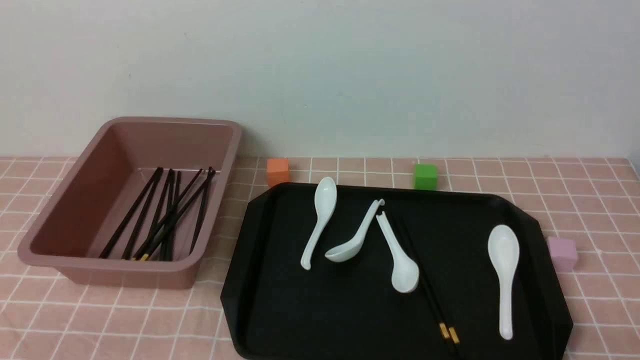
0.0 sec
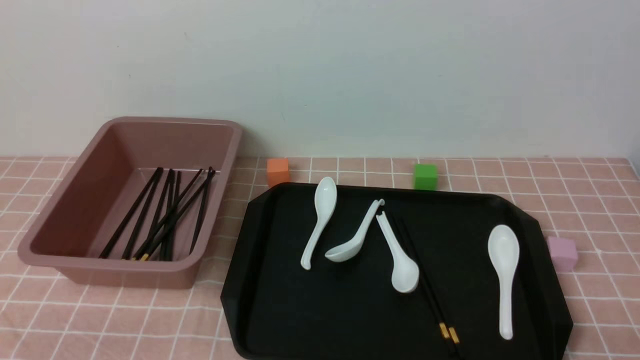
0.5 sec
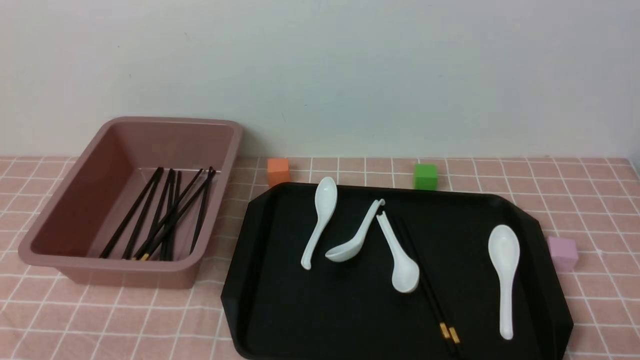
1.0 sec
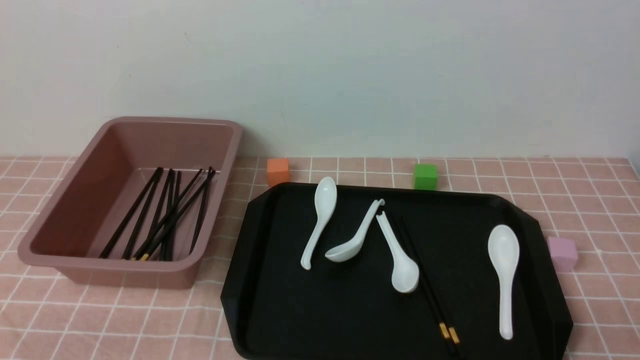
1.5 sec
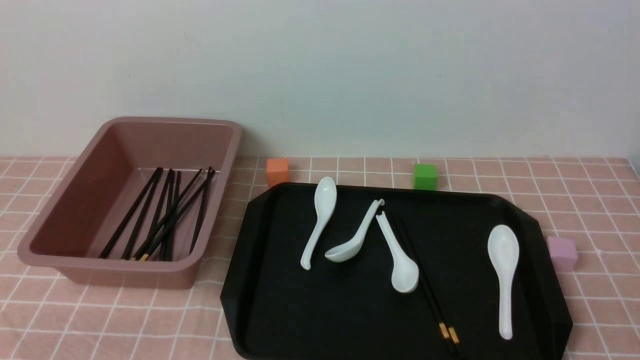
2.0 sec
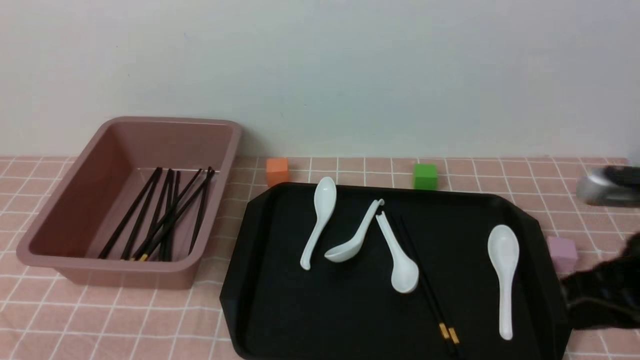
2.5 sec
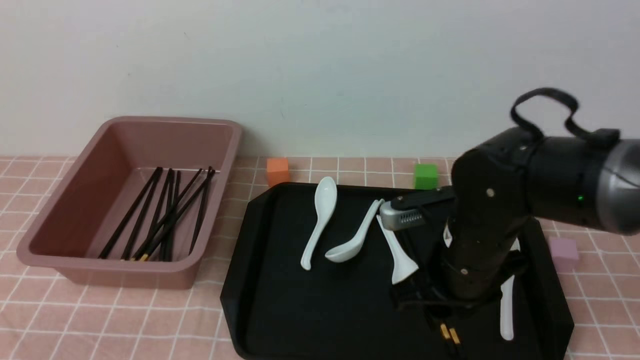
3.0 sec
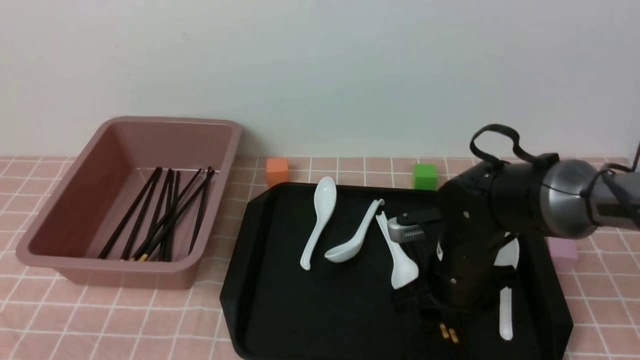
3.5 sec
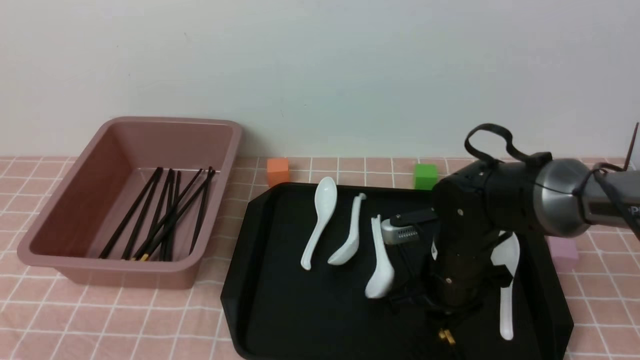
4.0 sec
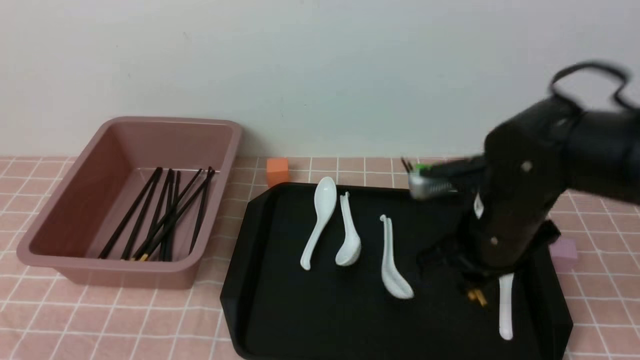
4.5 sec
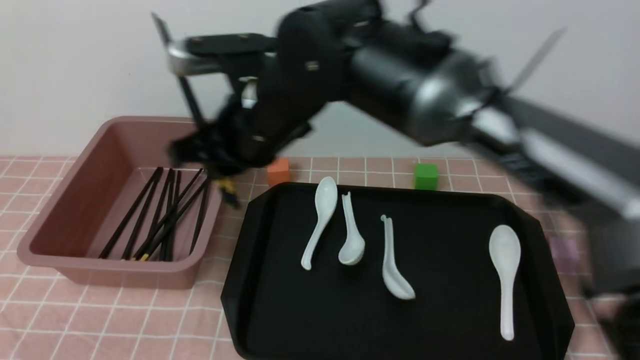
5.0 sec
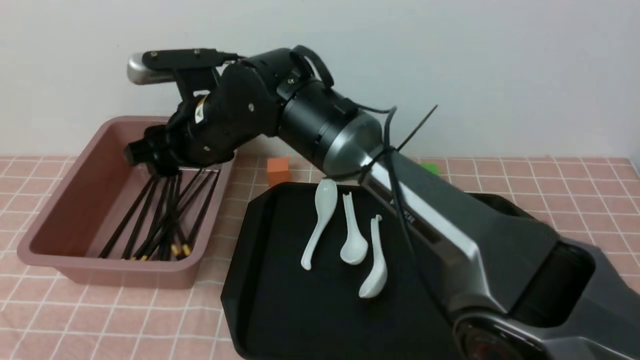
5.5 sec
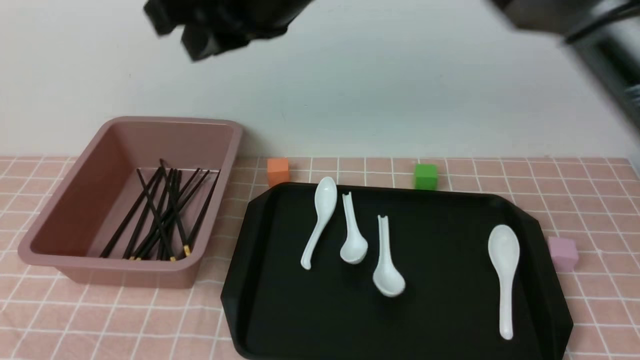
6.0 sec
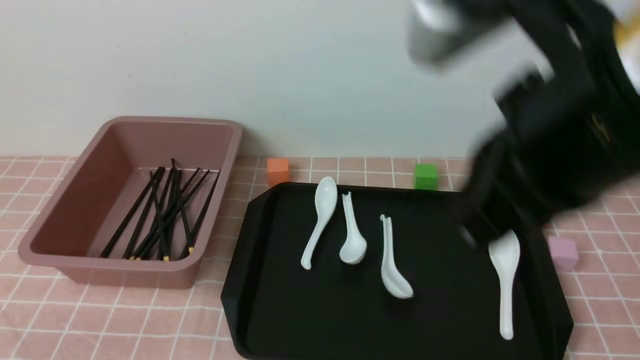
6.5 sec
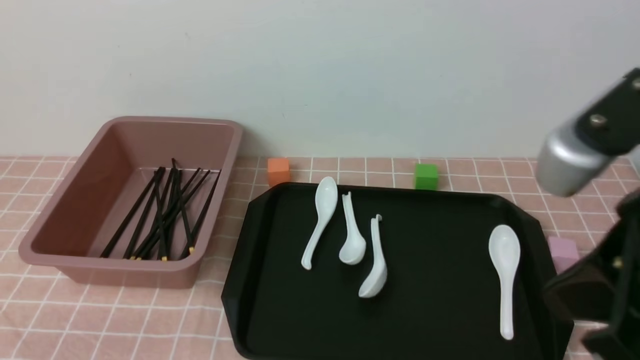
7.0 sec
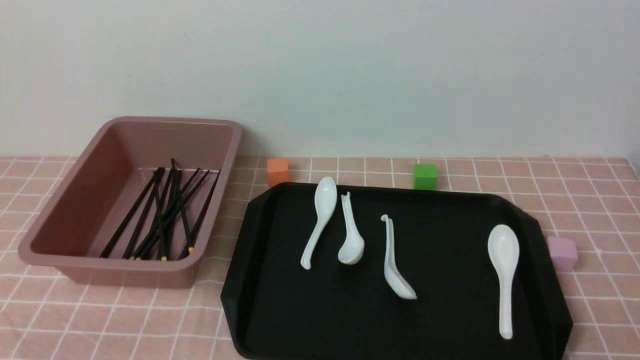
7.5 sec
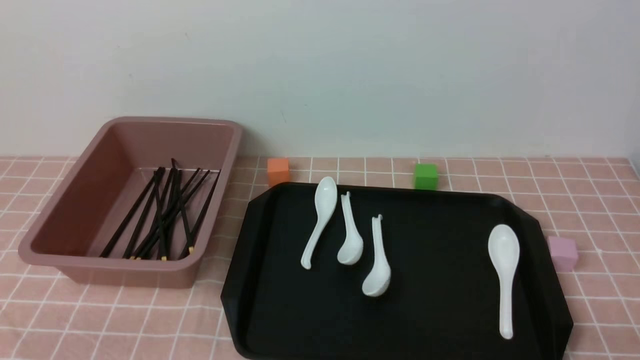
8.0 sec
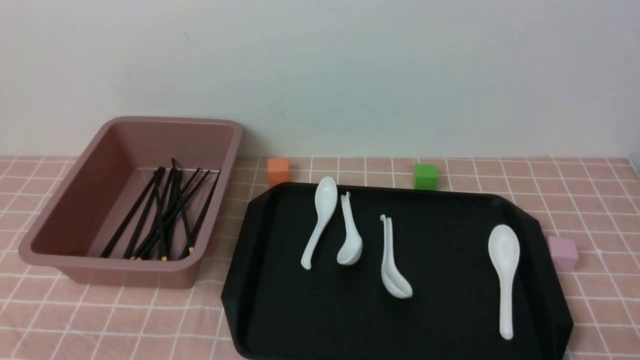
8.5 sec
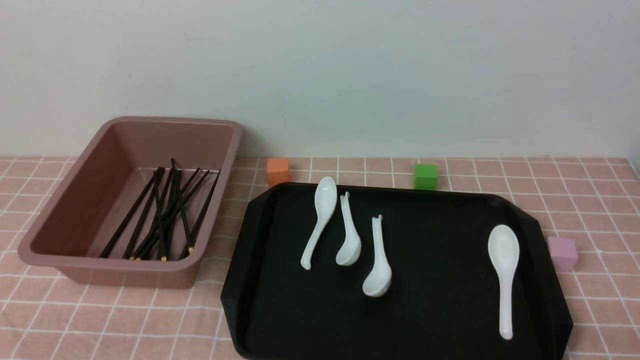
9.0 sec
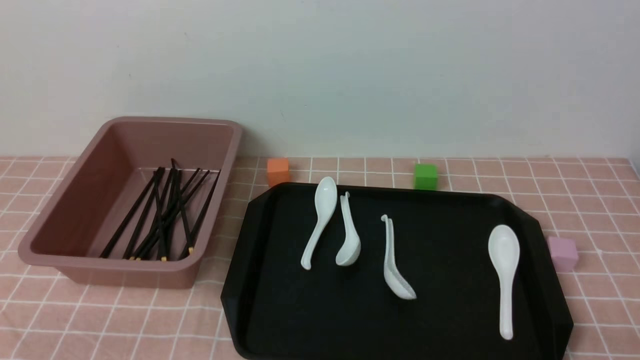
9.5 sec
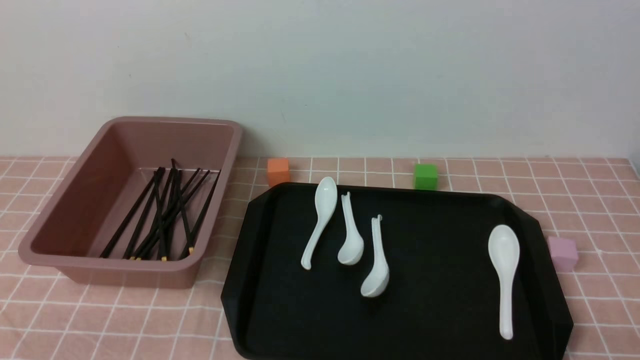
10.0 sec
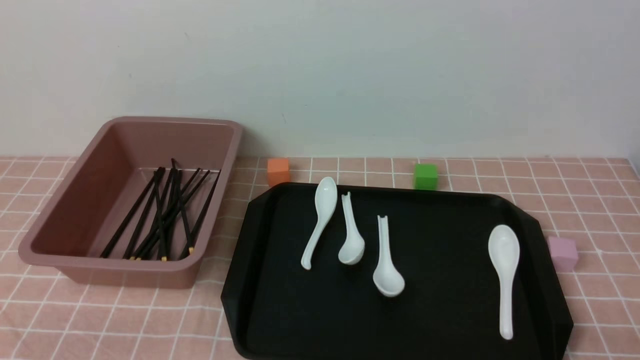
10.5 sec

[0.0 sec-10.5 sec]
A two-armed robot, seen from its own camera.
Step, 0.0 sec to 4.5 sec: use the right arm to grab a pair of chopsticks.
Step, 5.0 sec to 5.5 sec: use the right arm to put the chopsticks into the lunch box.
2.0 sec to 4.0 sec: The right gripper heads forward, to the left and downward, covering about 30 cm, and opens, then closes again.
4.0 sec to 6.5 sec: The right gripper shifts about 30 cm upward and backward, and closes its fingers.
6.5 sec to 8.5 sec: The right gripper is displaced downward, to the right and backward by some 35 cm.
8.5 sec to 10.5 sec: Both grippers stay put.

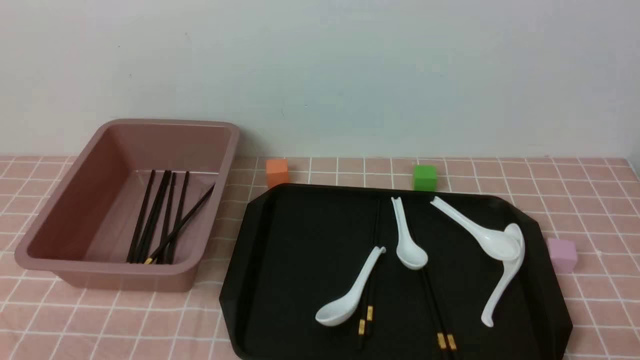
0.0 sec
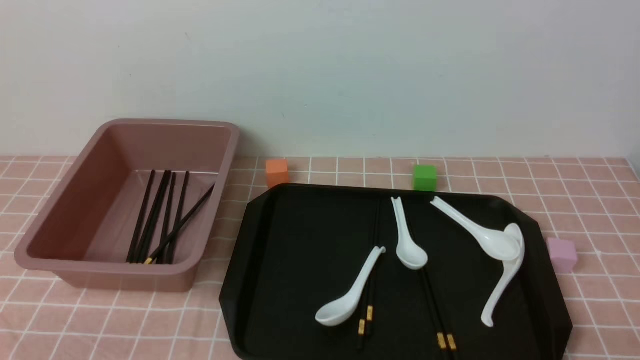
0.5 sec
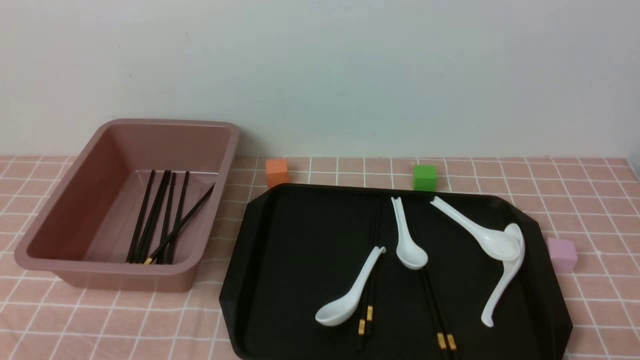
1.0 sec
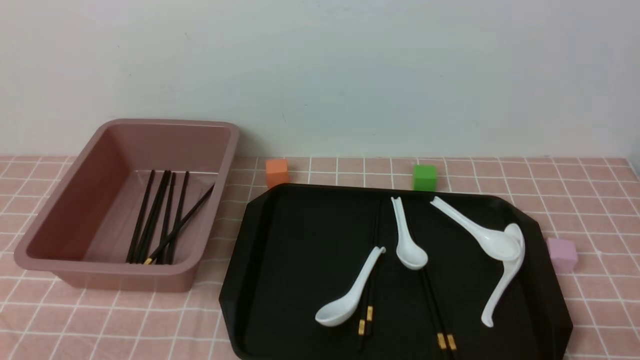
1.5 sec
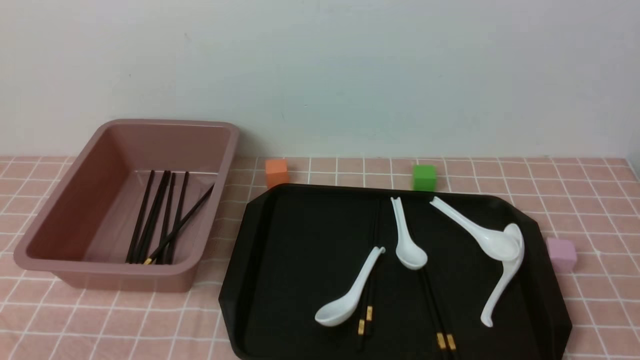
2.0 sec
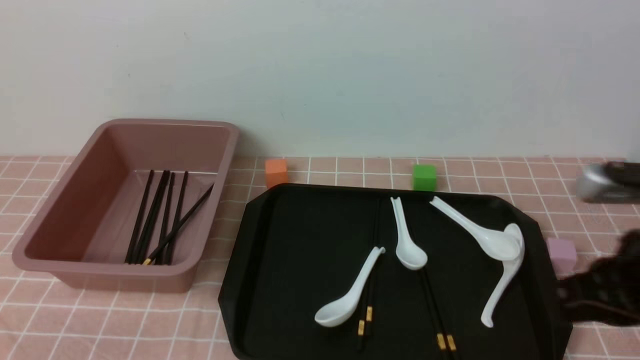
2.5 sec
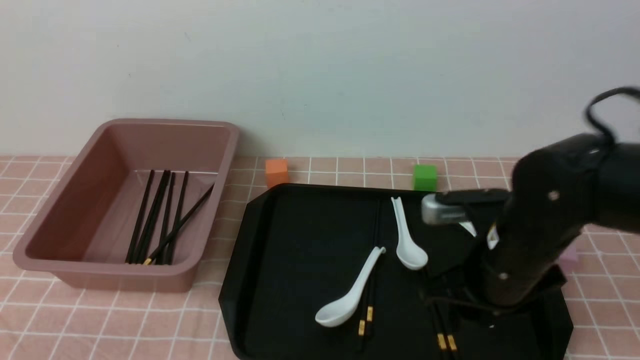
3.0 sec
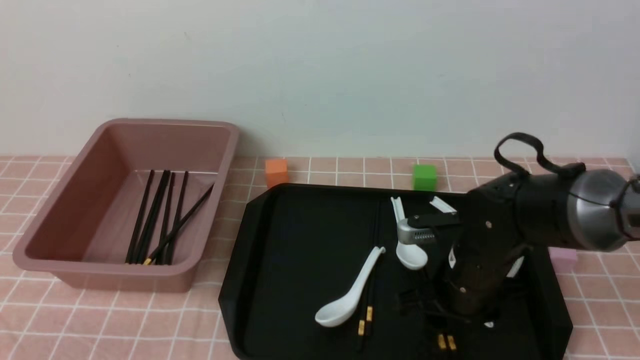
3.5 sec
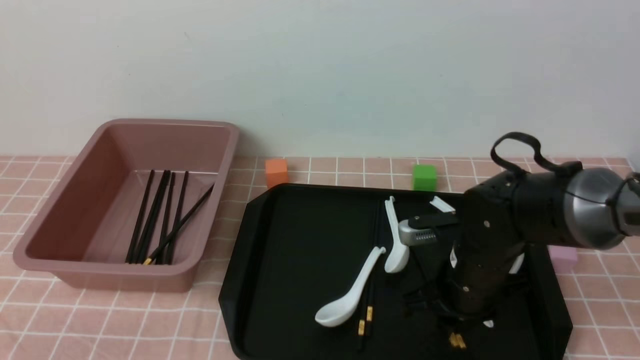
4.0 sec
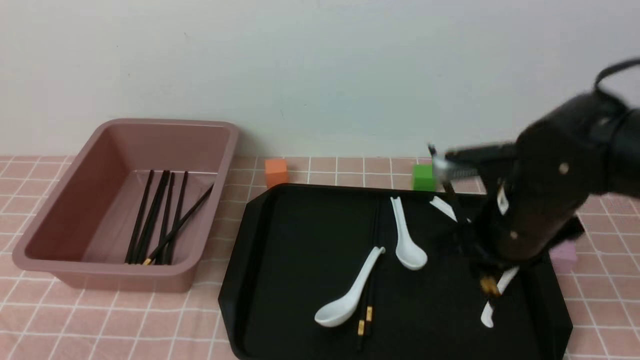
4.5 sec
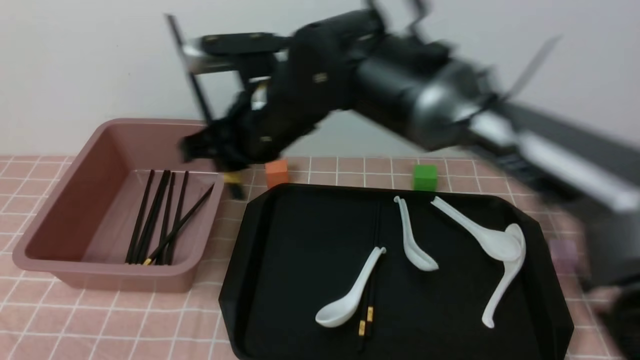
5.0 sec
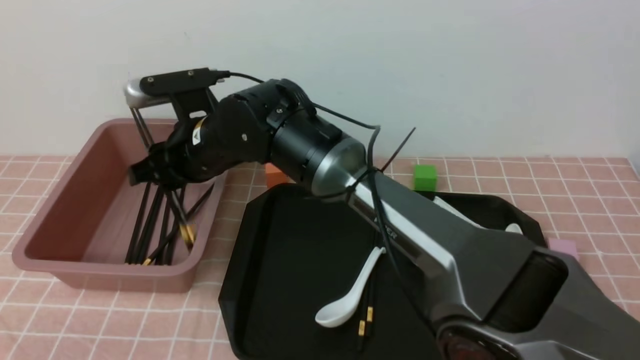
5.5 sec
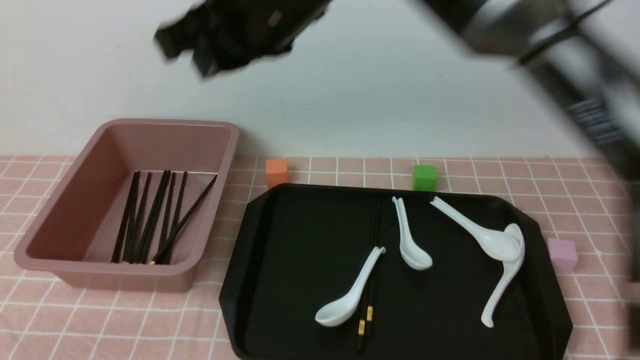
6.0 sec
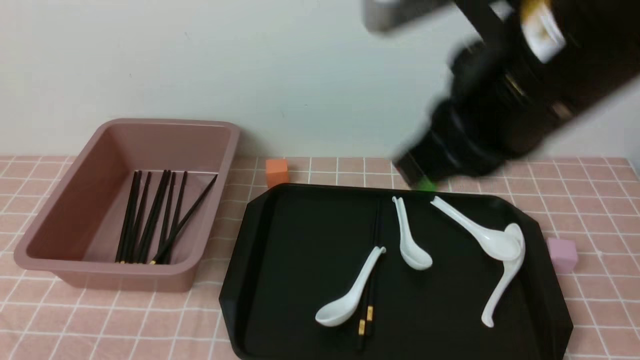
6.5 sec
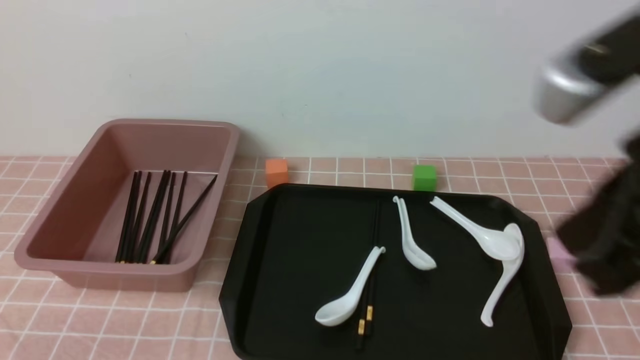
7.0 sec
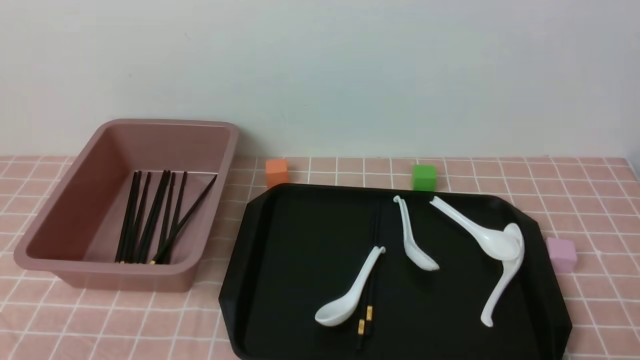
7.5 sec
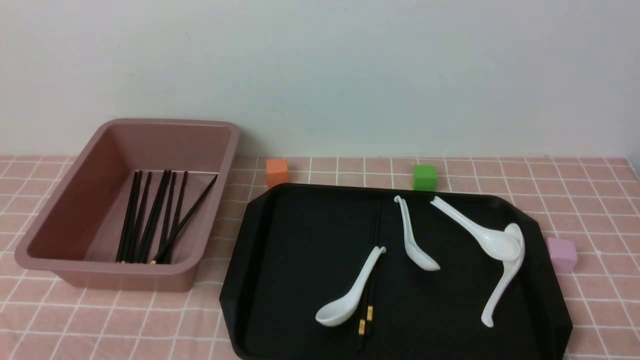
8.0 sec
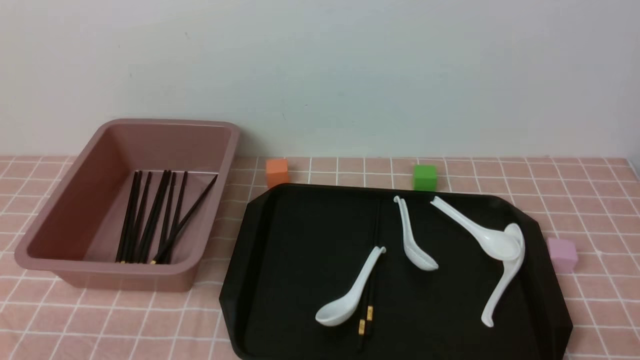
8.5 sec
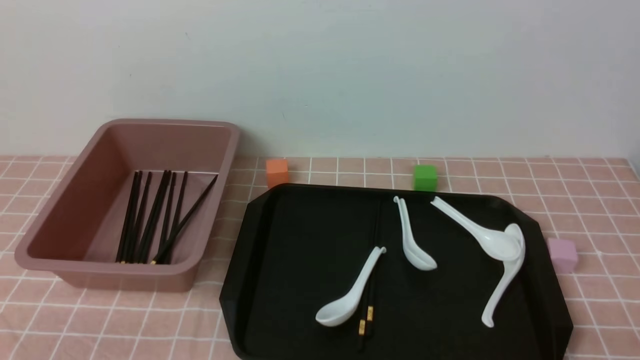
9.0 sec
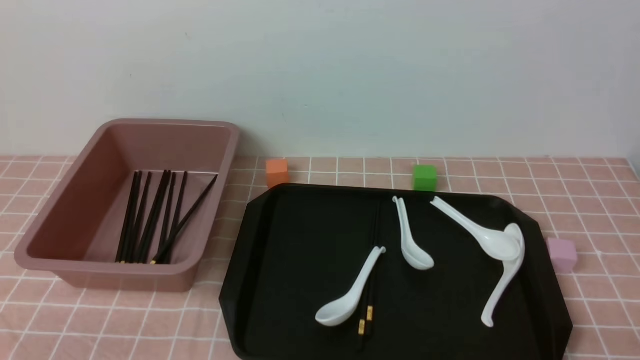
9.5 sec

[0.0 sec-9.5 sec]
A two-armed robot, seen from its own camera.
Step, 0.0 sec to 4.5 sec: use the right arm to grab a pair of chopsticks.
Step, 5.0 sec to 5.5 sec: use the right arm to put the chopsticks into the lunch box.
2.0 sec to 4.0 sec: The right gripper shifts about 30 cm forward, to the left and downward, and opens and closes again.
4.0 sec to 5.5 sec: The right gripper is displaced to the left and upward by some 30 cm, and opens.
5.5 sec to 7.5 sec: The right gripper heads to the right and backward, covering approximately 50 cm, and closes up.
